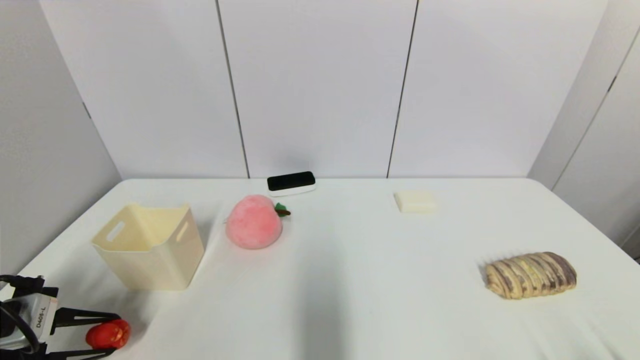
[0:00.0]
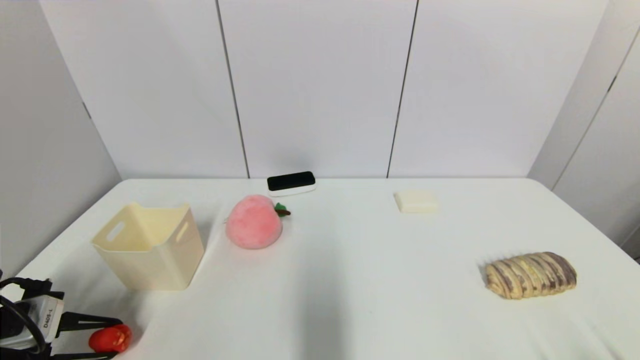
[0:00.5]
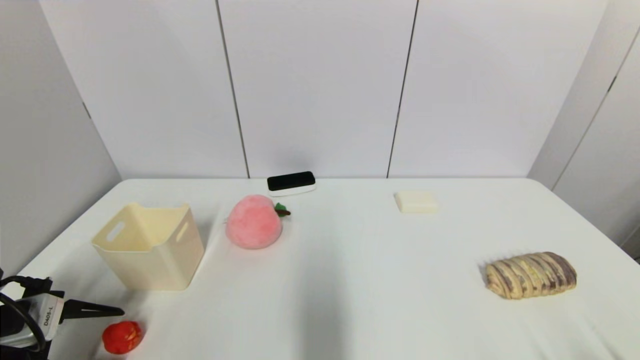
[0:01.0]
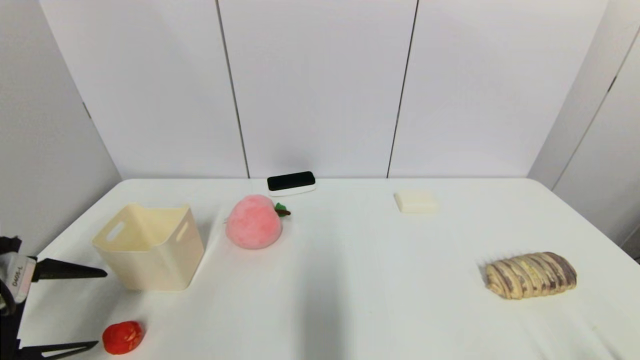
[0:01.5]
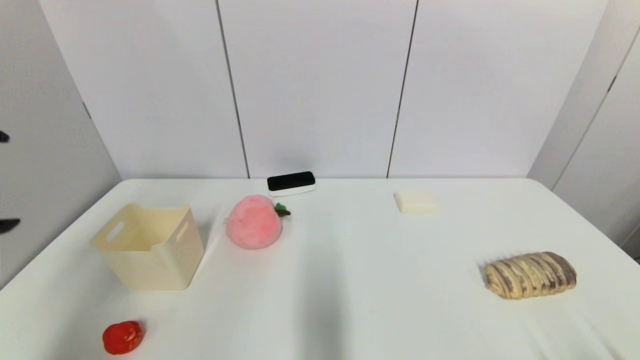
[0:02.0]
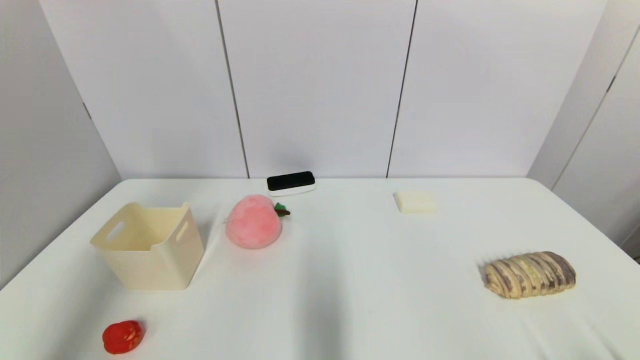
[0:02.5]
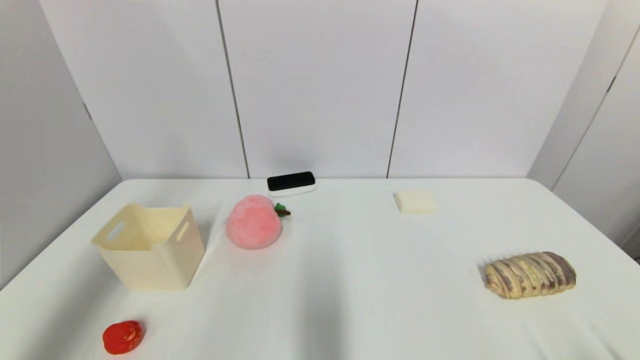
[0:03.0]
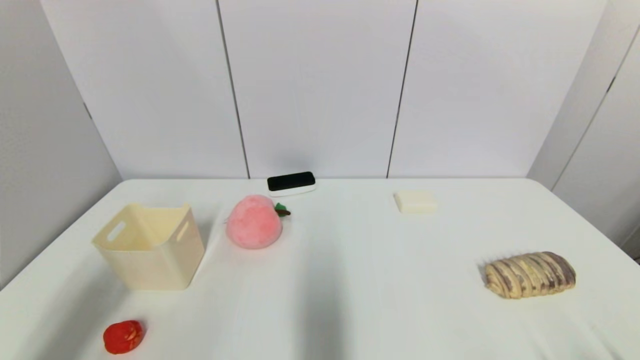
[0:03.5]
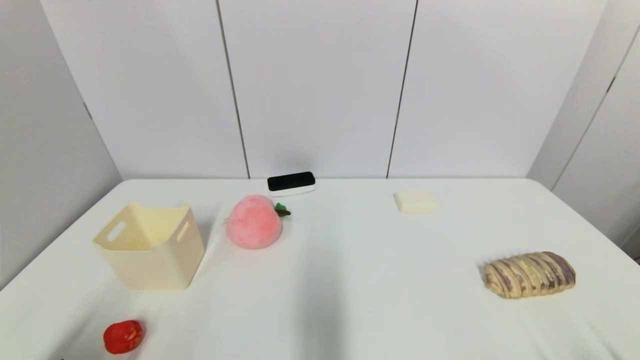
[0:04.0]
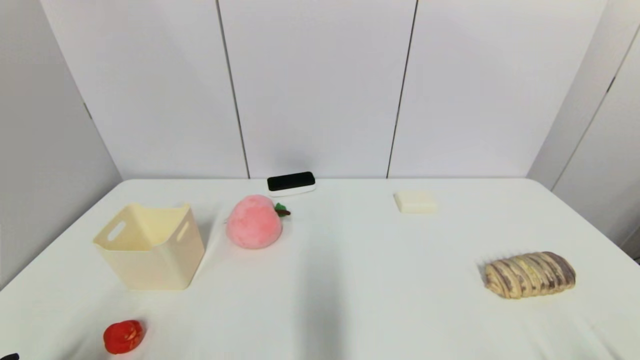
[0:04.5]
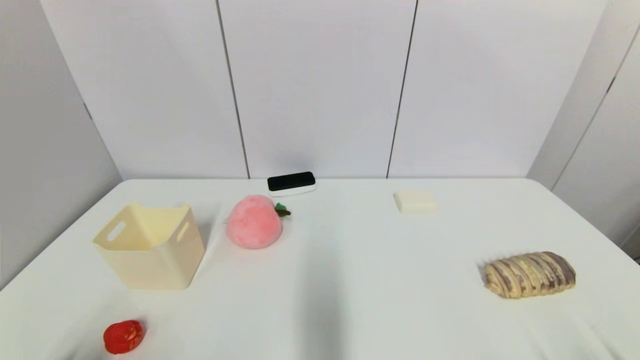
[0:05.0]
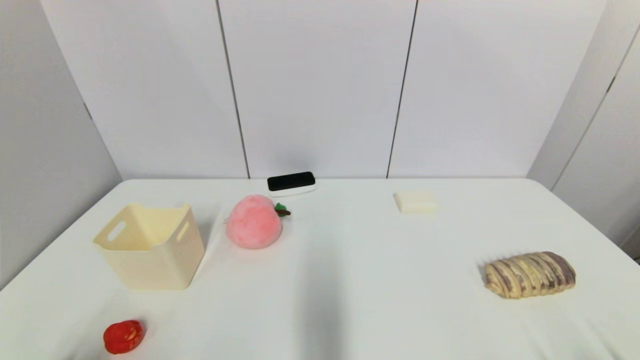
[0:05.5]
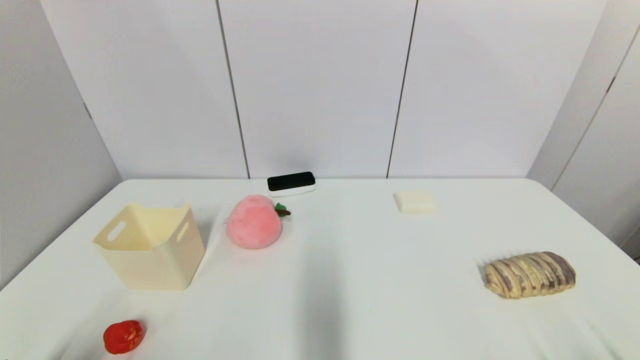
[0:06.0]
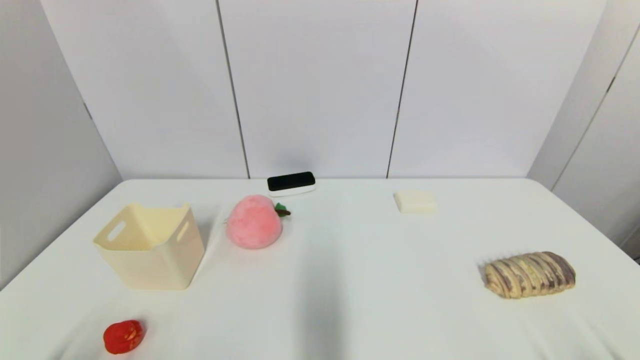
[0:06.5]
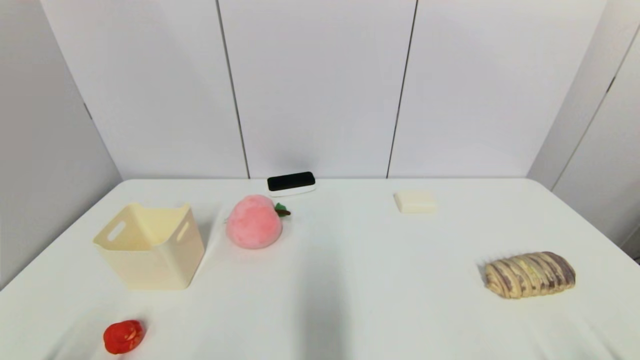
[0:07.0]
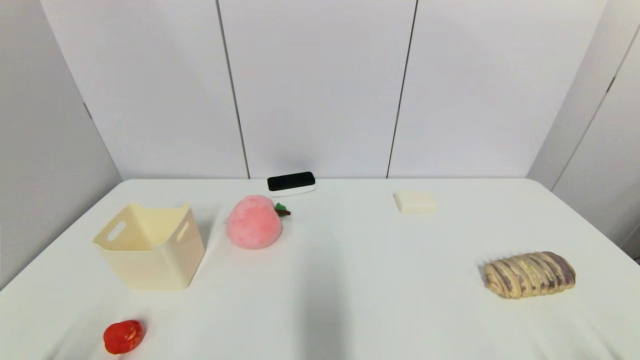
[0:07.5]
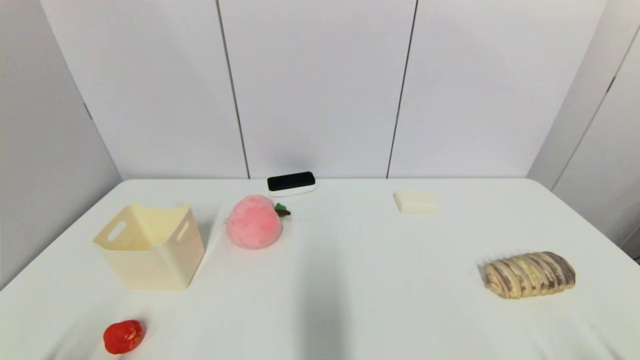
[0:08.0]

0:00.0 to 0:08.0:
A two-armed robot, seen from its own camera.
0:00.0 to 0:02.0: The left gripper goes about 20 cm upward, and opens up.
0:02.0 to 0:04.0: The left gripper heads downward and backward, covering approximately 25 cm.

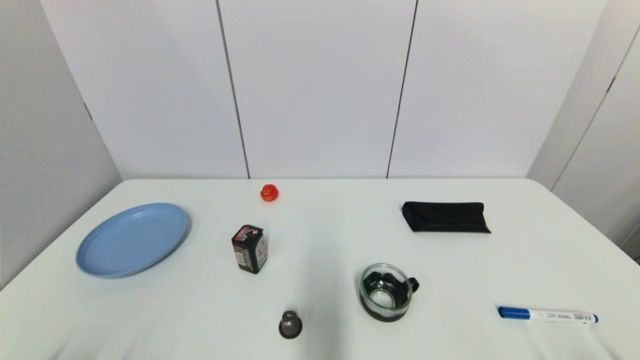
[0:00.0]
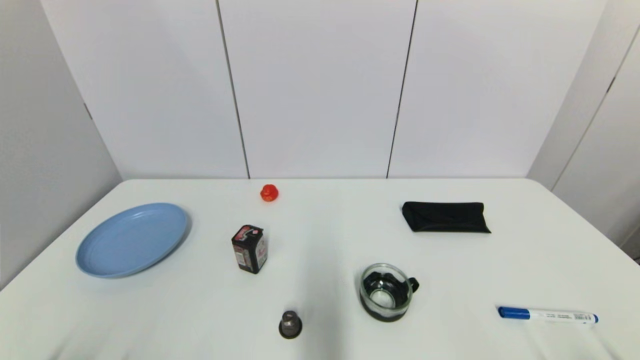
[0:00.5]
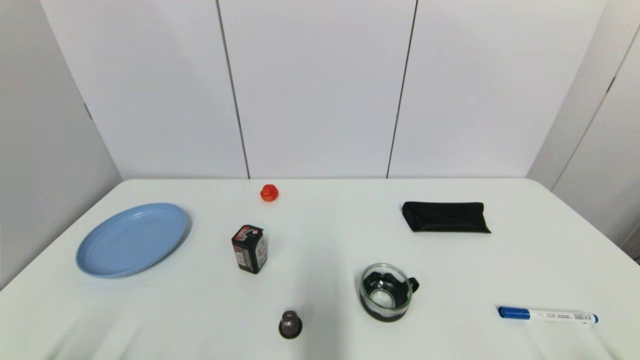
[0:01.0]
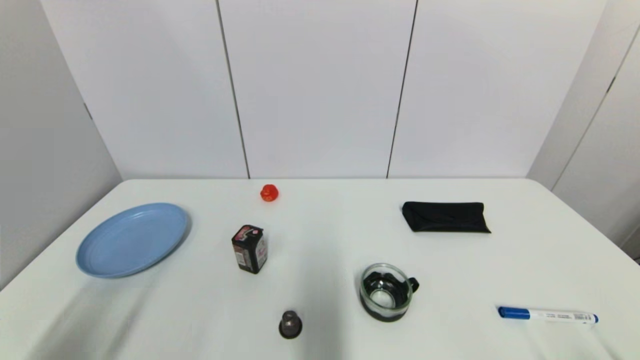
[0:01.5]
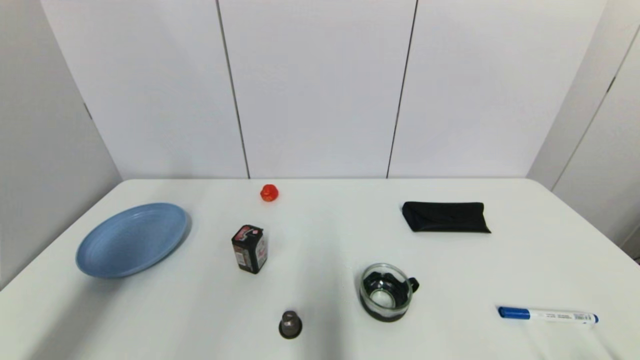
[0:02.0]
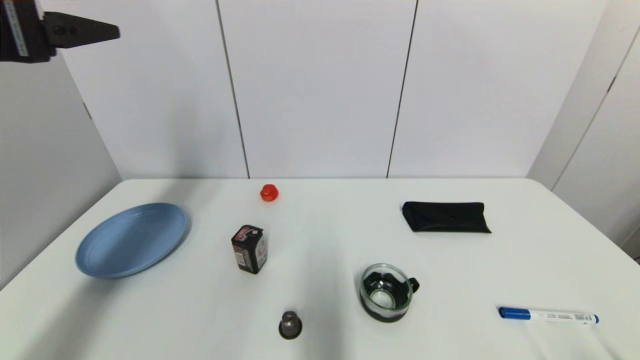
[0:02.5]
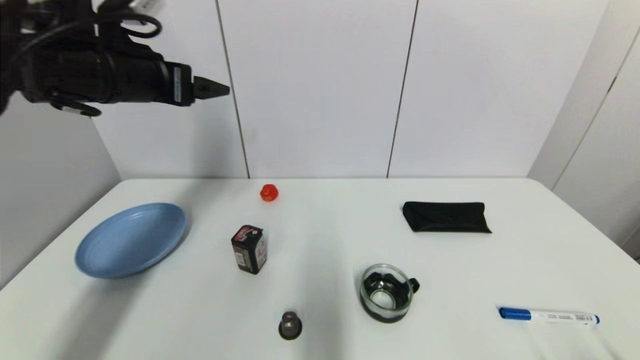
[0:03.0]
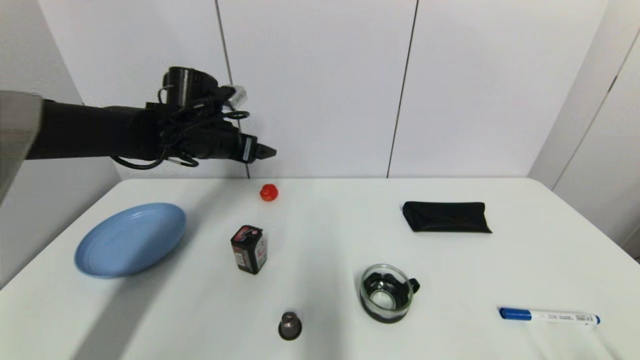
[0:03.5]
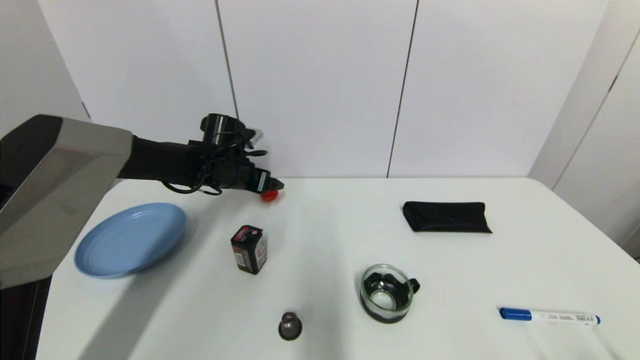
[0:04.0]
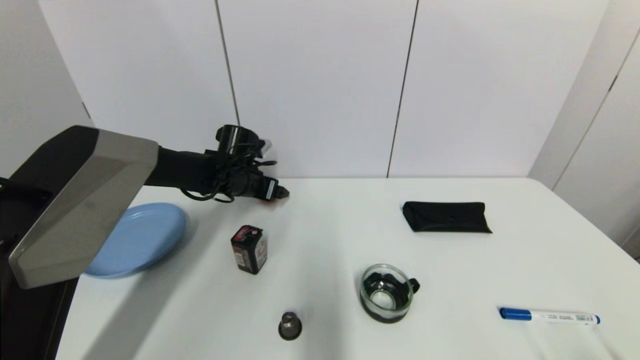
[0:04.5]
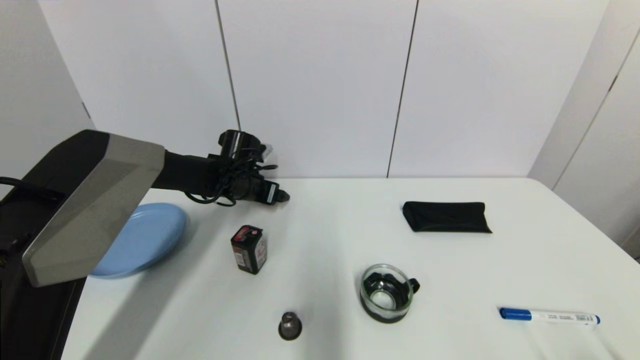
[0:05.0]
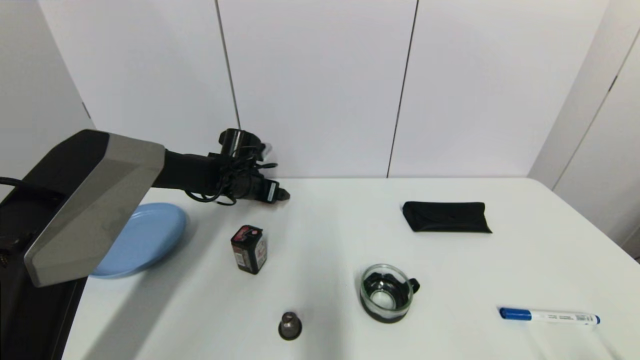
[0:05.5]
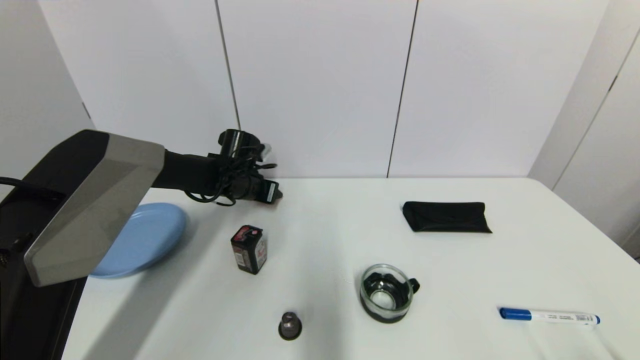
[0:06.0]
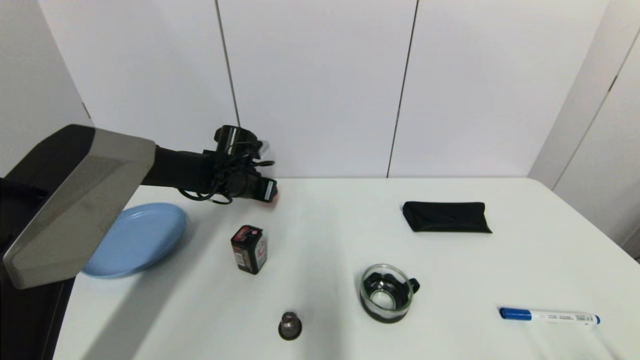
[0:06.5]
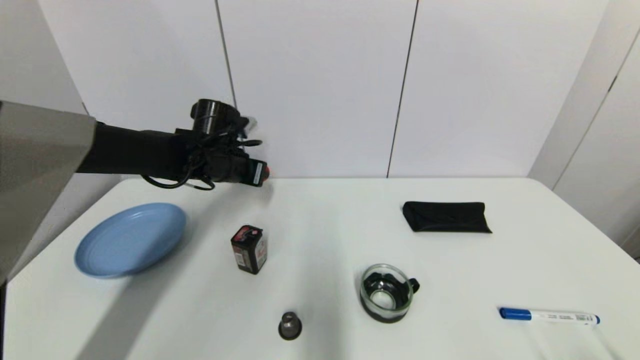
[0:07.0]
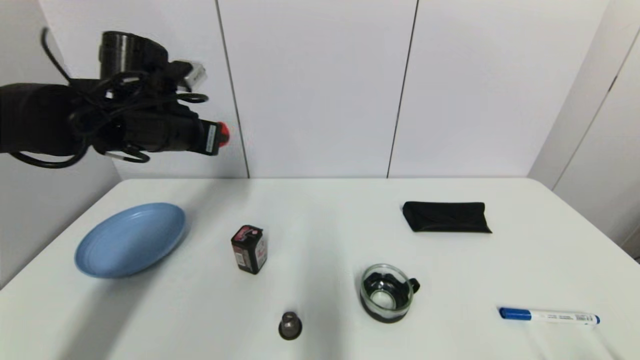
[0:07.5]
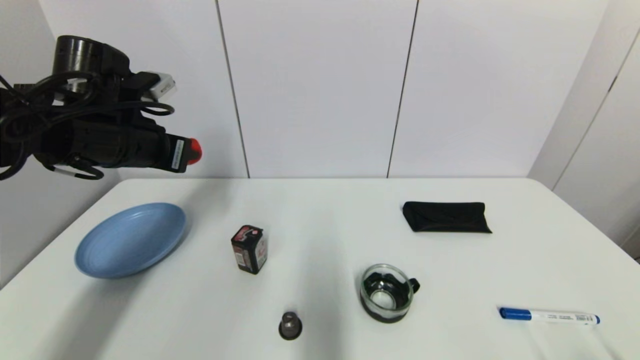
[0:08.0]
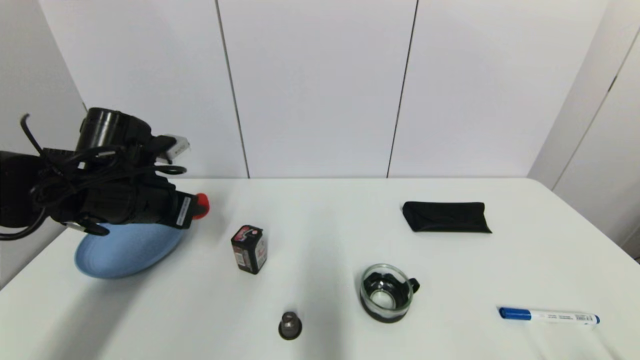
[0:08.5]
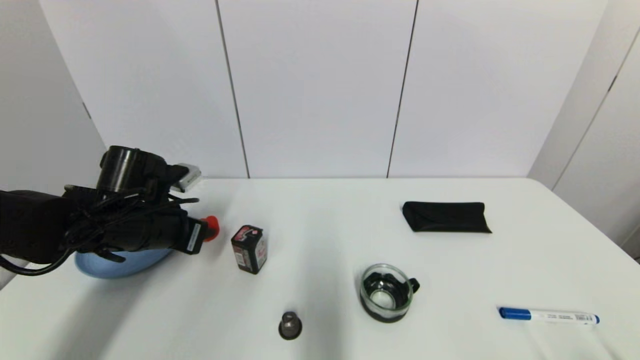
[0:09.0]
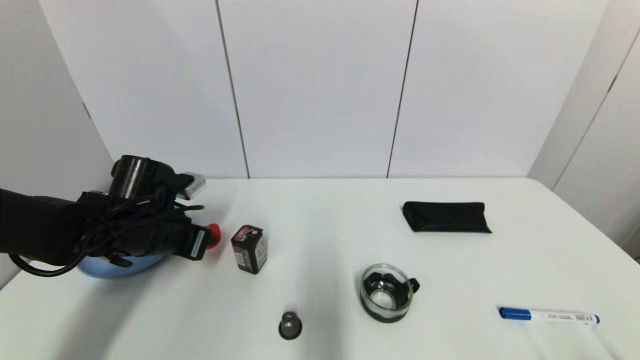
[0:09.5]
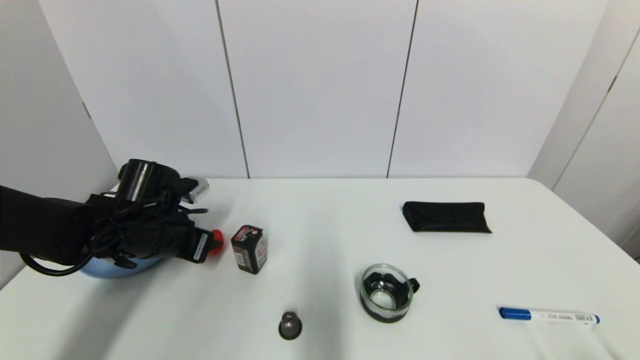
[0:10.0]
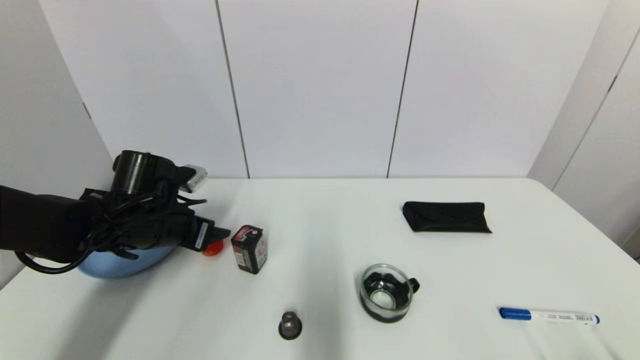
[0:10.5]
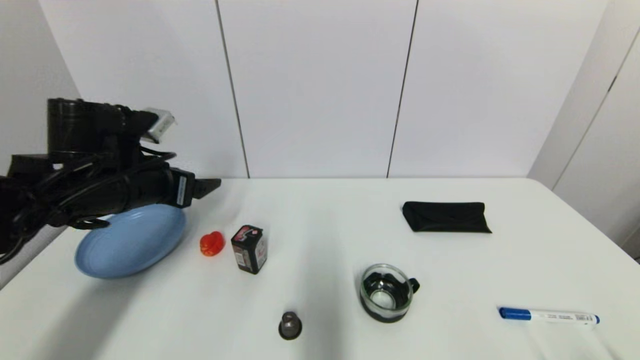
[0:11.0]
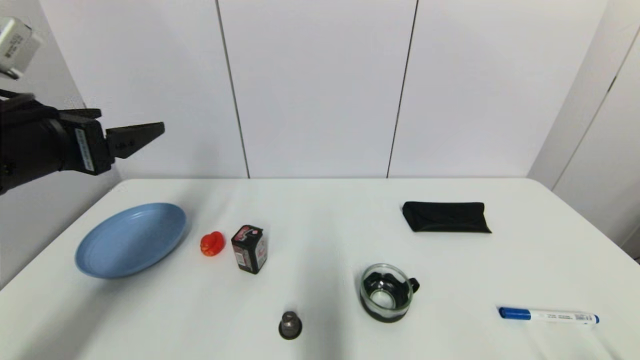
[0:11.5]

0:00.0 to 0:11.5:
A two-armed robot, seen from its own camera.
Step, 0:01.5 to 0:06.5: Grasp the red duck with left gripper.
Step, 0:07.0 to 0:10.0: Place the red duck on the table with left gripper.
0:00.0 to 0:02.0: The left gripper shifts some 25 cm upward.
0:02.0 to 0:04.0: The left gripper is displaced forward and downward by approximately 40 cm.
0:04.0 to 0:06.0: The left gripper closes its fingers.
0:06.0 to 0:07.5: The left gripper heads upward and backward, covering approximately 20 cm, and closes its fingers.
0:07.5 to 0:09.5: The left gripper goes some 15 cm downward.
0:09.5 to 0:11.5: The left gripper heads upward and backward, covering about 20 cm, and opens up.
